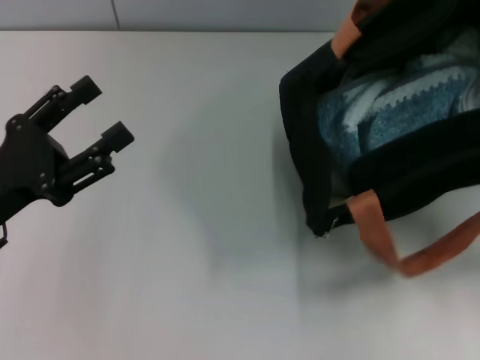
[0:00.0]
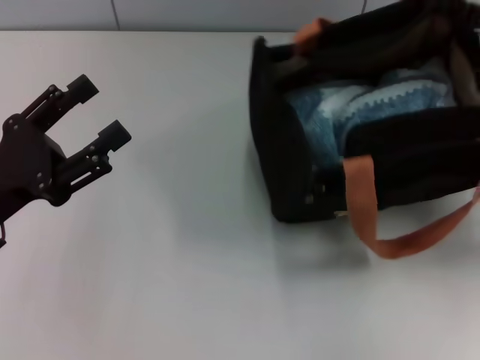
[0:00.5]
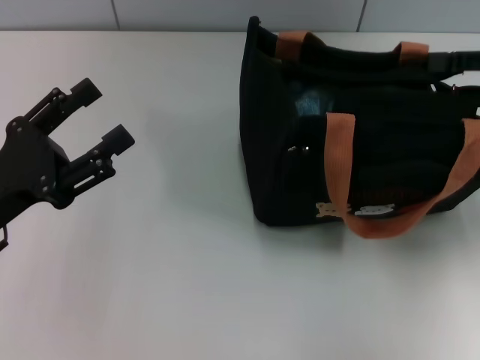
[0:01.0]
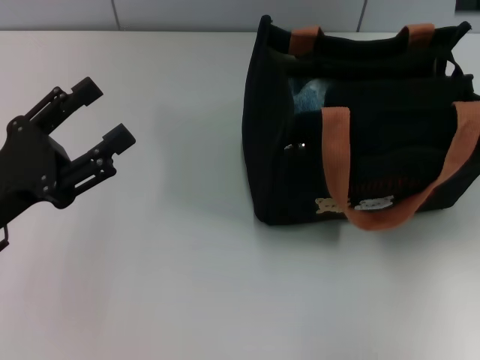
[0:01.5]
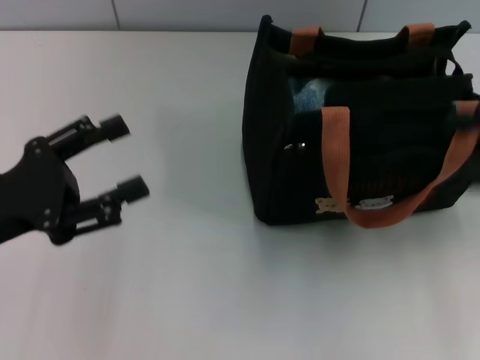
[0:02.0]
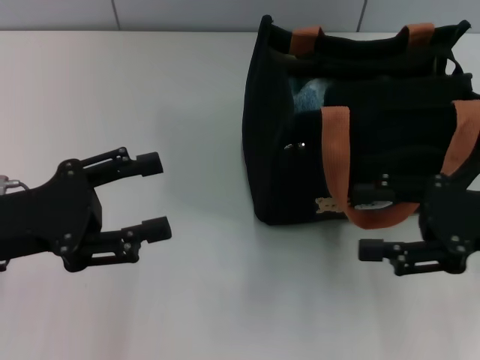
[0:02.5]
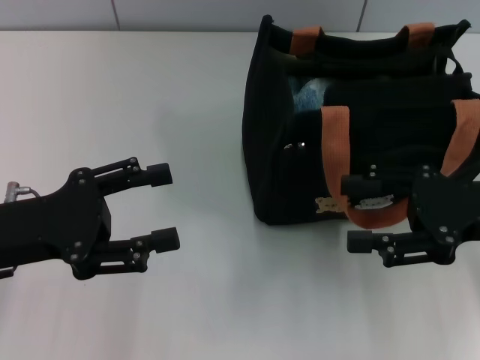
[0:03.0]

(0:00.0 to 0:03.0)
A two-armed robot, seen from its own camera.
0:00.0 - 0:01.5: The right gripper heads upward, covering approximately 10 cm.
0:01.5 - 0:03.0: The right gripper travels downward, backward and to the left by about 15 cm.
